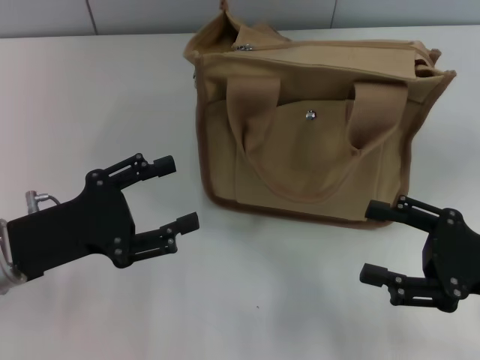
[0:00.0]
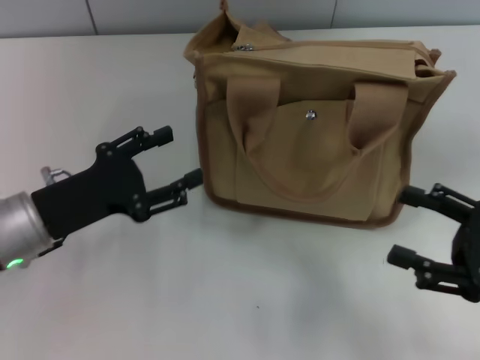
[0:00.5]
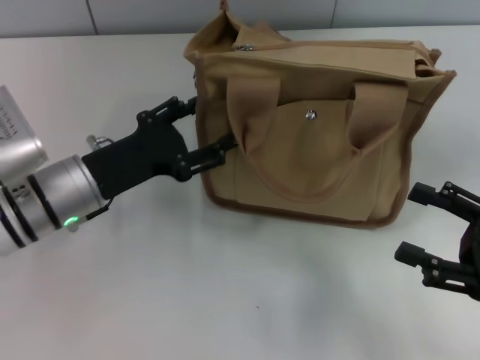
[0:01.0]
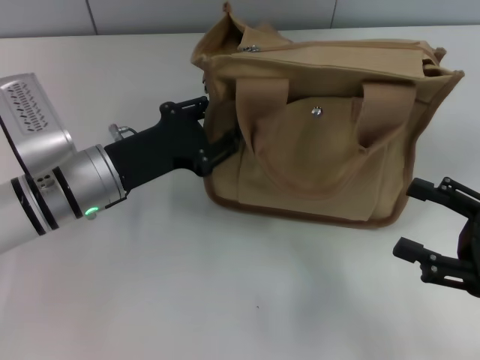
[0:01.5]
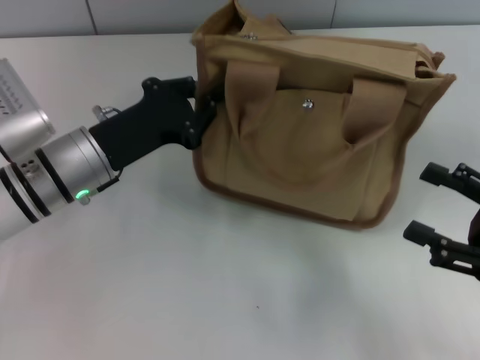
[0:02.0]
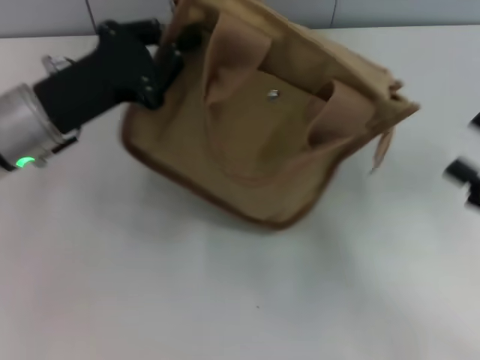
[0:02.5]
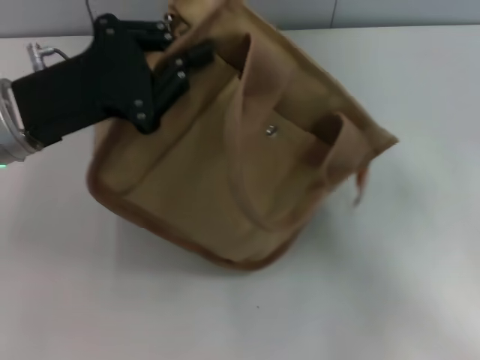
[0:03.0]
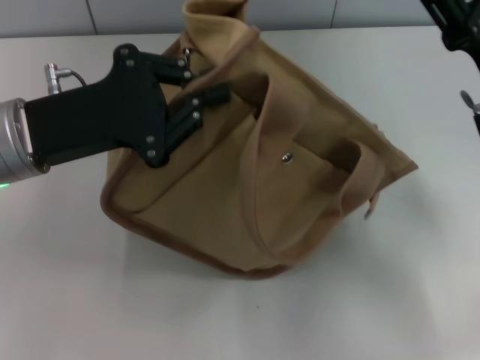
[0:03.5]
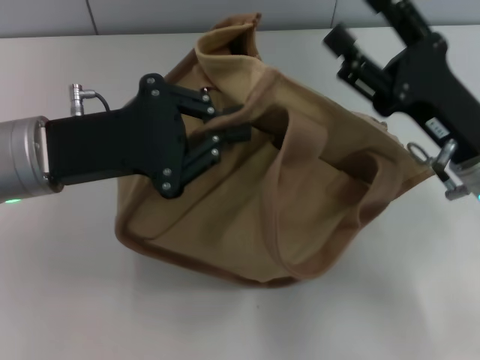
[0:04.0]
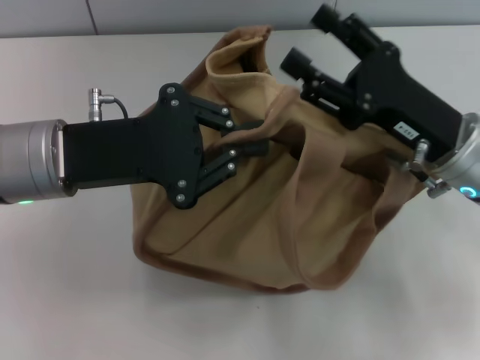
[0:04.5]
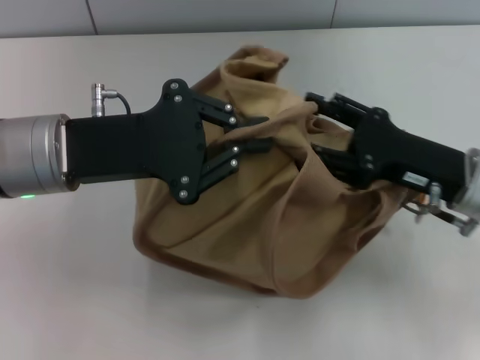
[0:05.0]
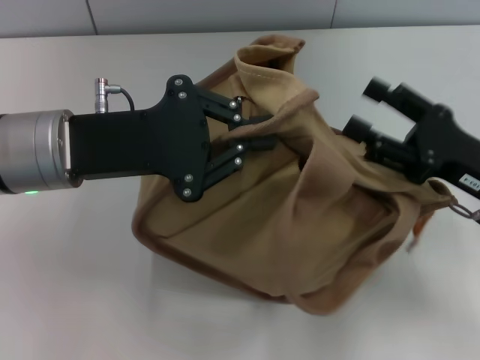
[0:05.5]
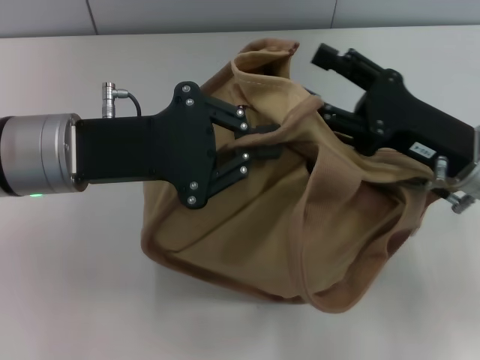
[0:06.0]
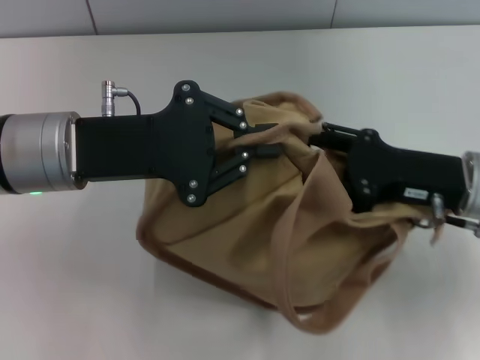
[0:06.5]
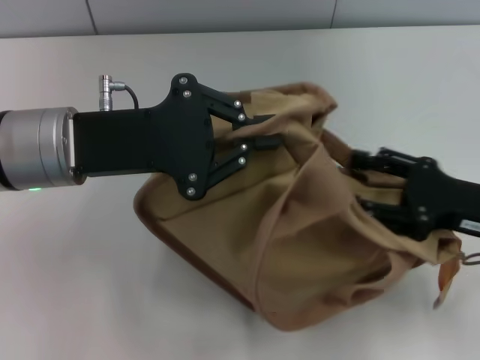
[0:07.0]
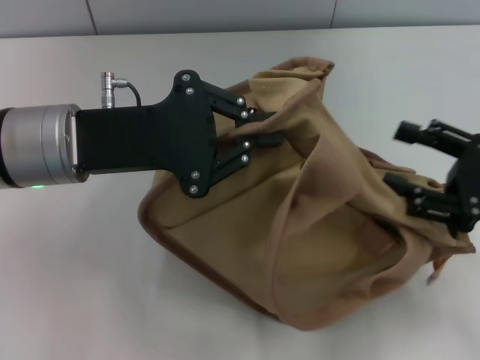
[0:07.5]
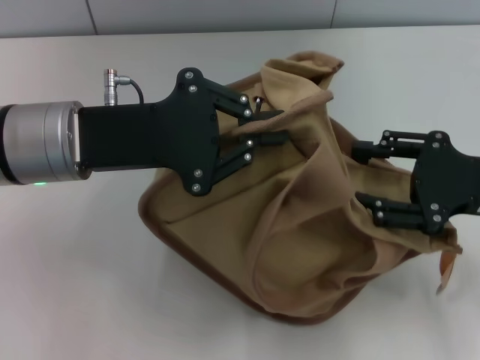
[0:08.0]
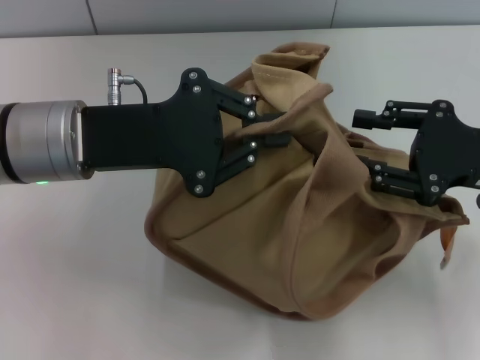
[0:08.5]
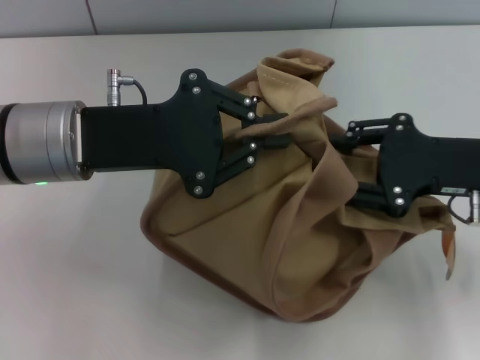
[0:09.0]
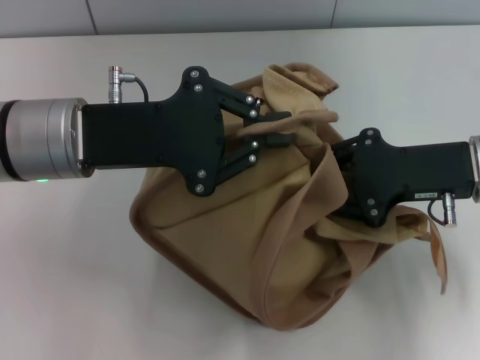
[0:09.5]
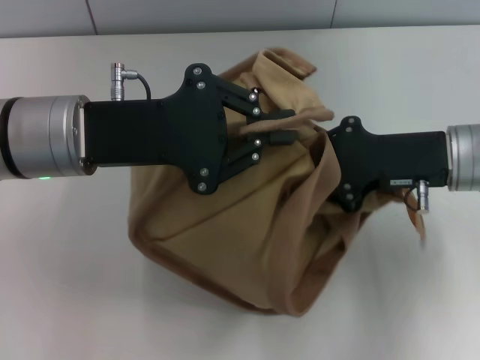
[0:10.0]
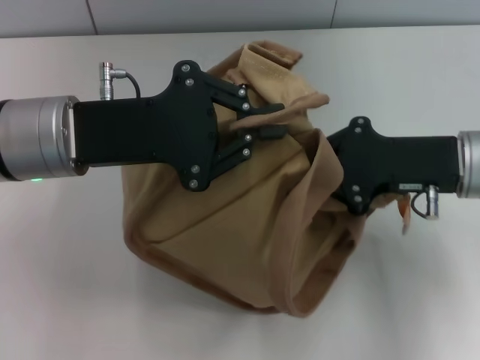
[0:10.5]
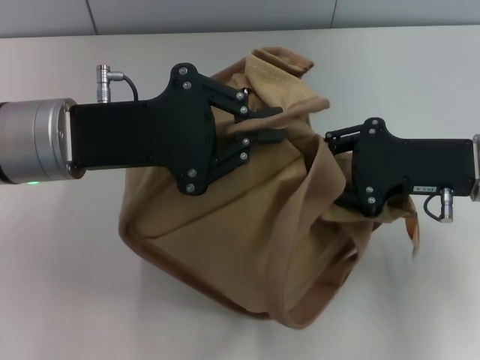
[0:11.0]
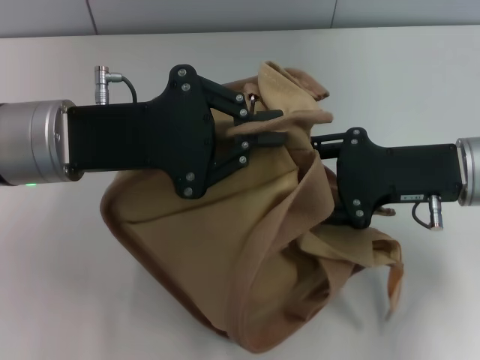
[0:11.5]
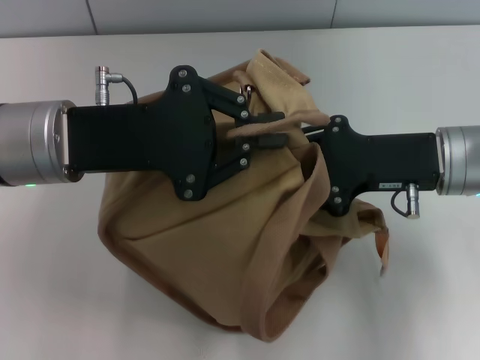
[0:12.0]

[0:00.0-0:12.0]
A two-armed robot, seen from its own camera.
0.0 to 2.0 s: The left gripper shifts about 10 cm forward and to the right, and closes up.
2.0 to 4.0 s: The right gripper shifts about 15 cm to the left and forward. Meanwhile the left gripper shifts some 10 cm upward.
6.0 to 8.0 s: The right gripper is displaced to the right by about 5 cm.
8.0 to 10.0 s: The right gripper goes about 5 cm to the left, and closes.
10.0 to 12.0 s: The right gripper closes, then reopens.

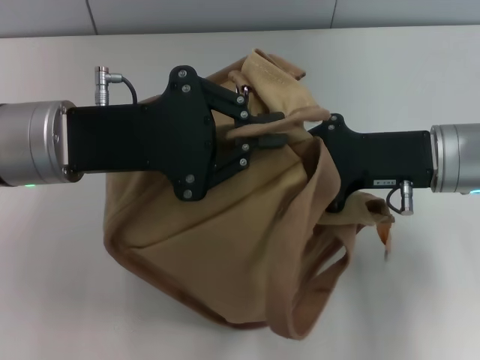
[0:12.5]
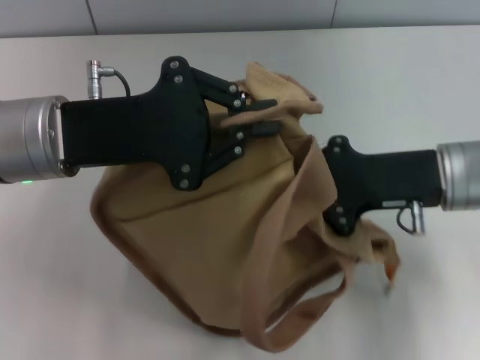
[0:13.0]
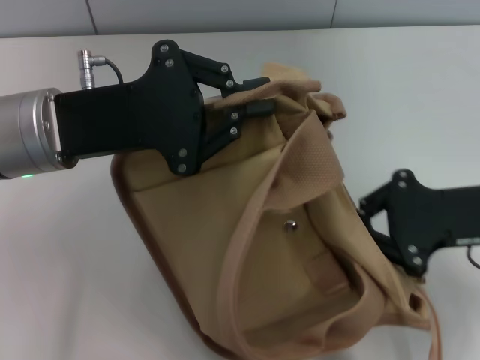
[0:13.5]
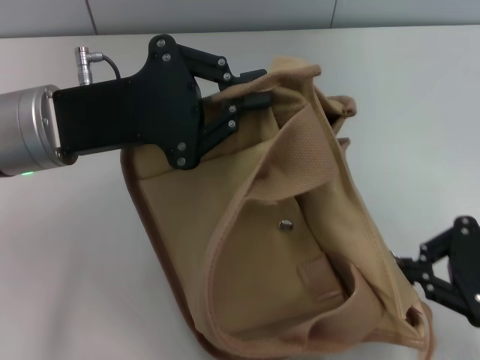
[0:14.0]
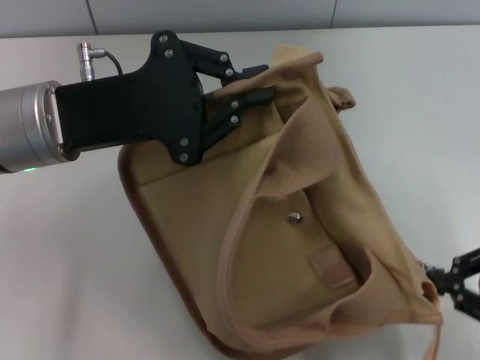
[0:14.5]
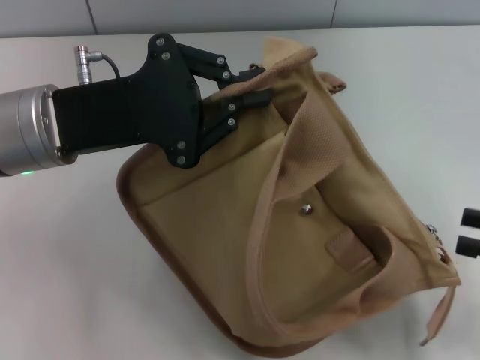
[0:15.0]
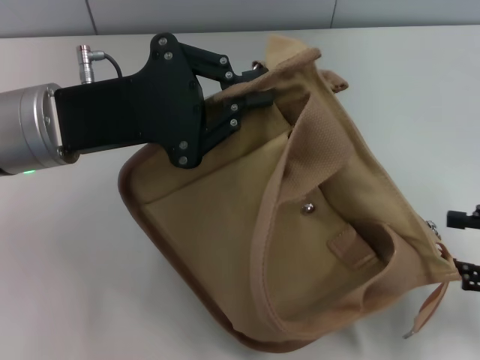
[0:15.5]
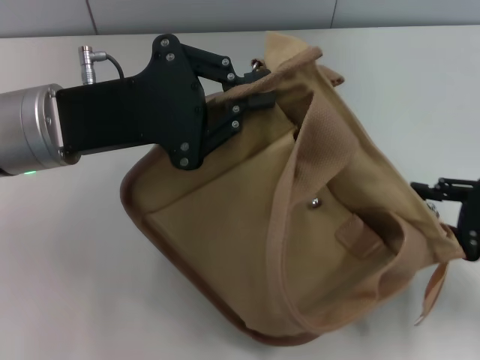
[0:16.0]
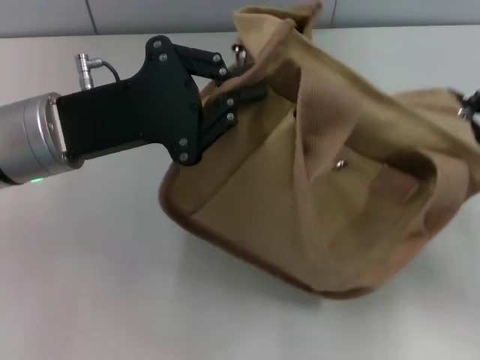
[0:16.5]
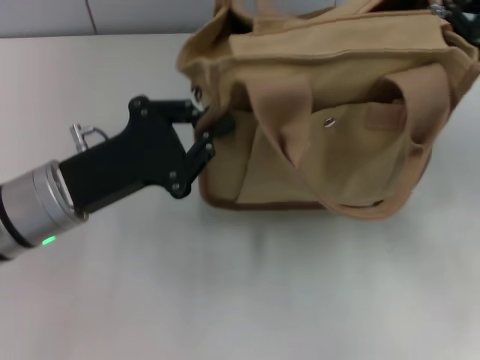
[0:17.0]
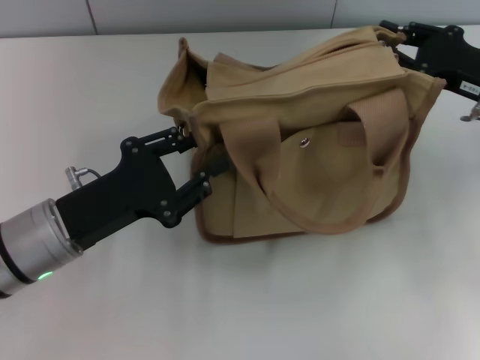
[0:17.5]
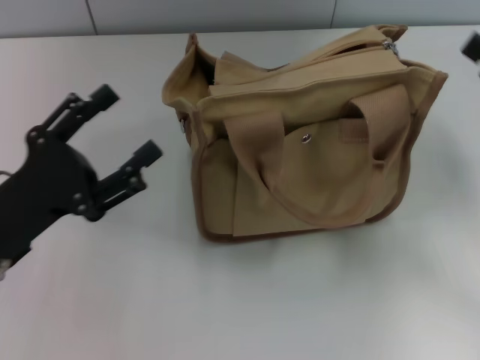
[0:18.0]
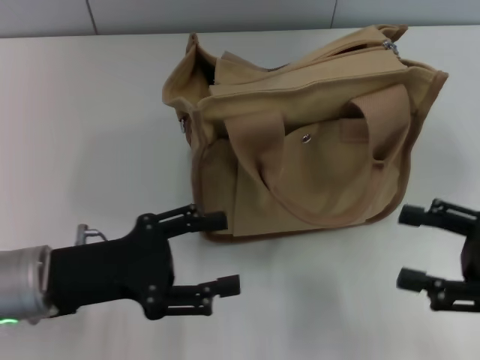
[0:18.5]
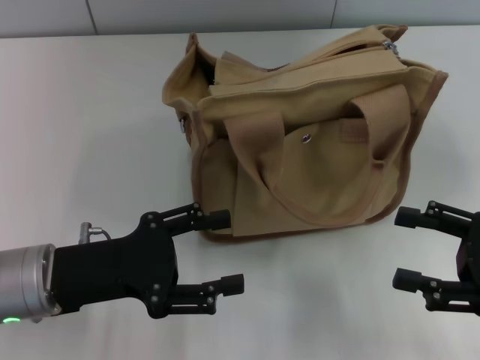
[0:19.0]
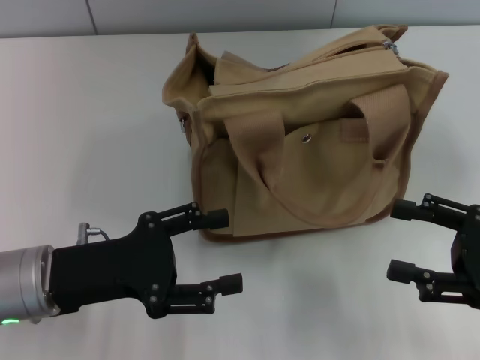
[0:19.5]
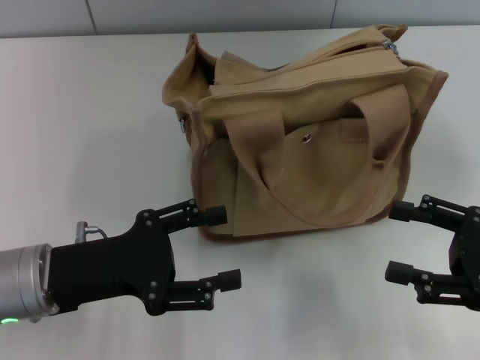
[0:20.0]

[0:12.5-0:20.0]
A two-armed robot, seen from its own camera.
Step, 12.5 to 15.5 s: Pull open the zipper with your right hand.
Step, 16.0 to 17.5 s: Grab the bag with your left hand.
12.5 to 14.5 s: The right gripper travels to the right and backward by about 15 cm.
14.5 to 16.5 s: The right gripper travels forward by some 5 cm, and opens and closes again.
16.5 to 18.0 s: The right gripper reaches about 10 cm forward, then returns, and opens its fingers. The left gripper travels backward, downward and to the left by about 15 cm, and opens up.
18.0 to 20.0 s: The right gripper moves backward, some 5 cm.

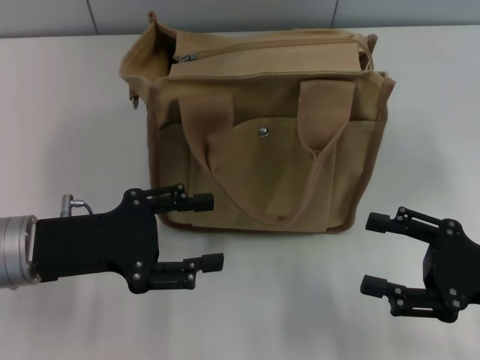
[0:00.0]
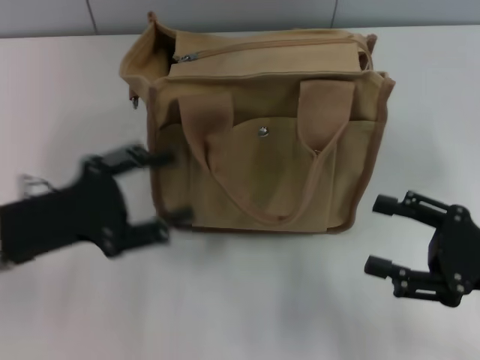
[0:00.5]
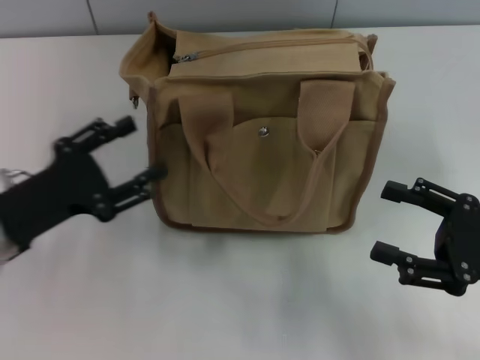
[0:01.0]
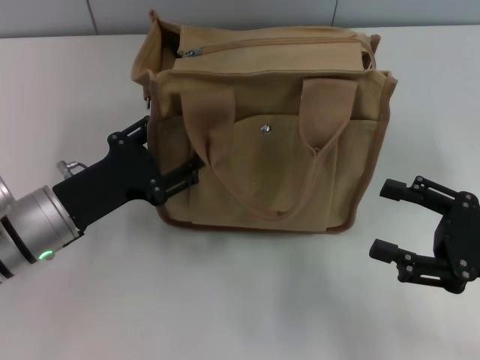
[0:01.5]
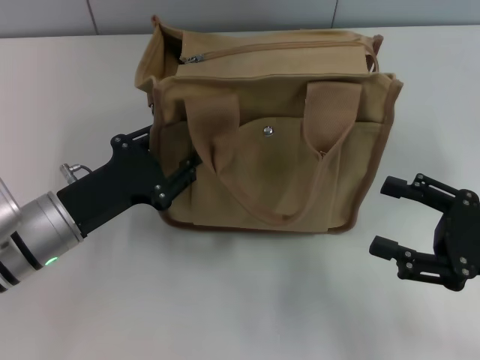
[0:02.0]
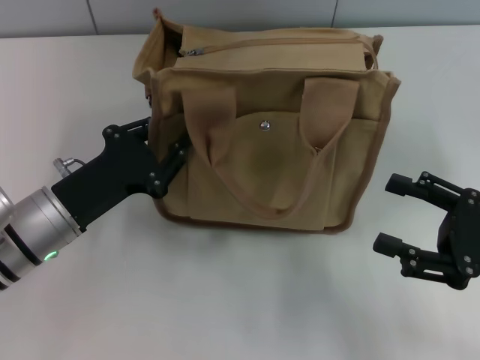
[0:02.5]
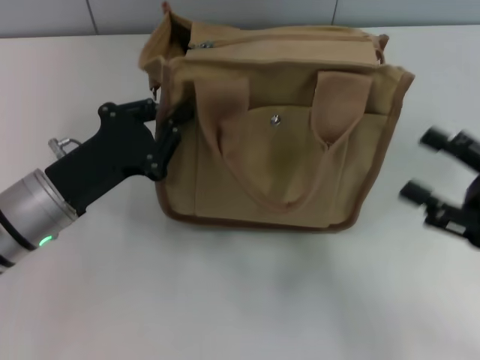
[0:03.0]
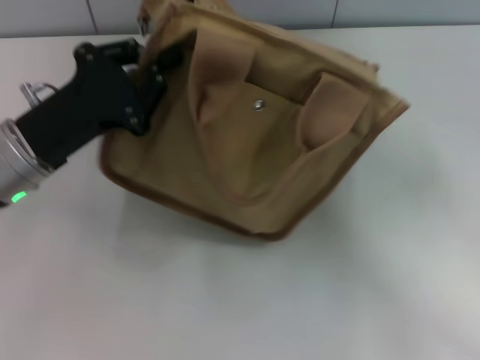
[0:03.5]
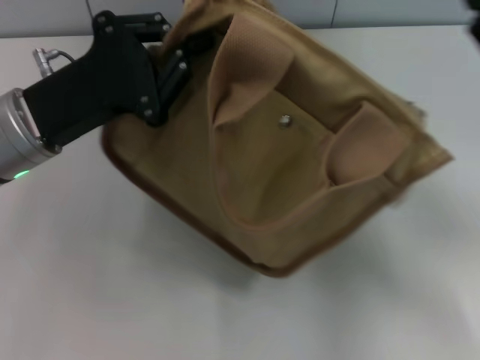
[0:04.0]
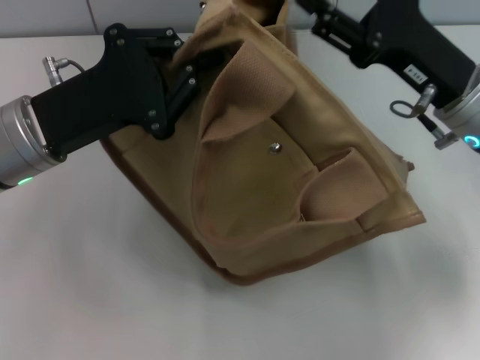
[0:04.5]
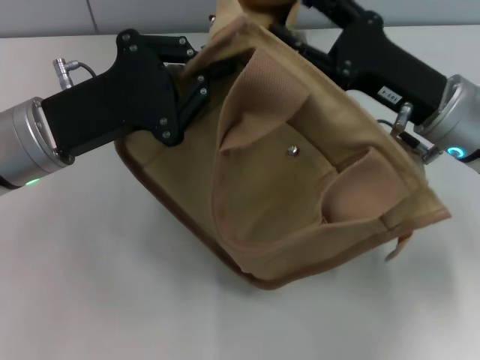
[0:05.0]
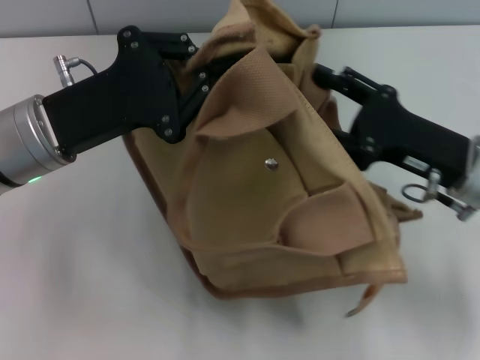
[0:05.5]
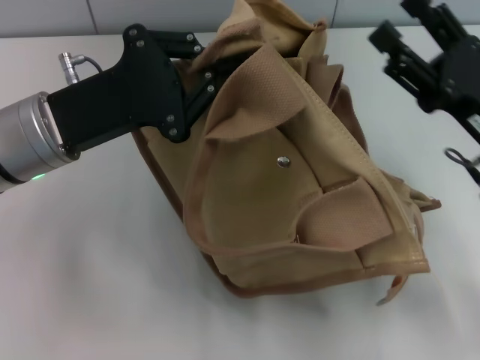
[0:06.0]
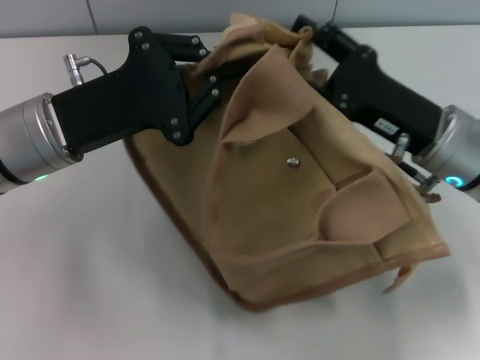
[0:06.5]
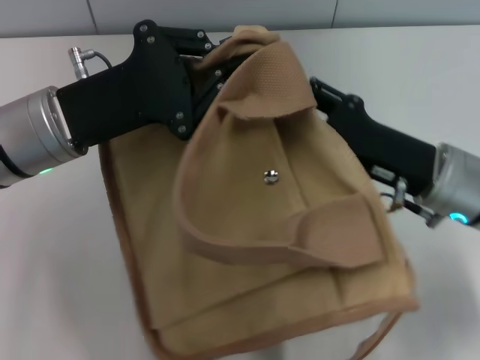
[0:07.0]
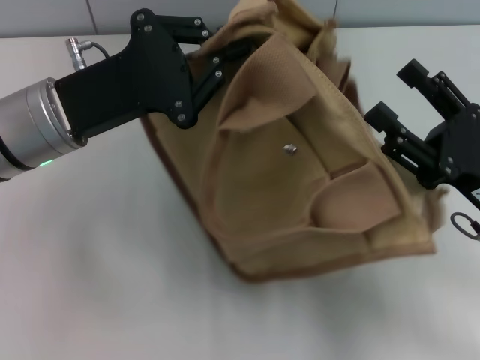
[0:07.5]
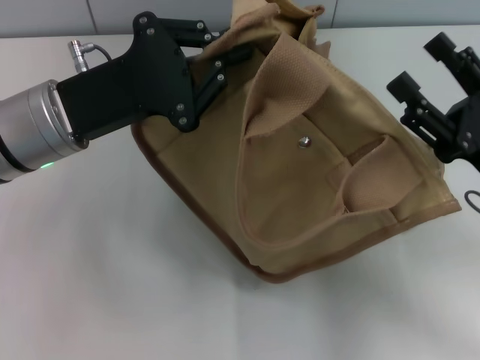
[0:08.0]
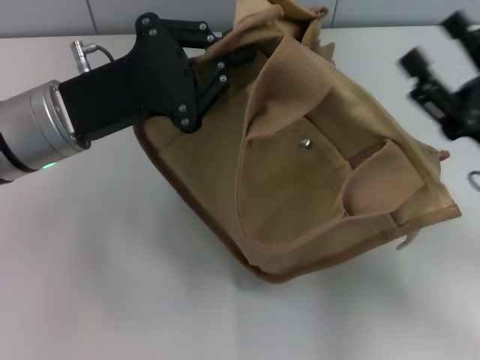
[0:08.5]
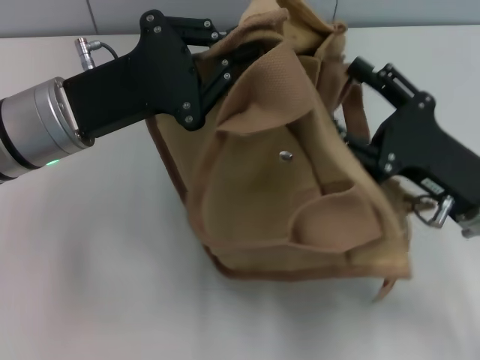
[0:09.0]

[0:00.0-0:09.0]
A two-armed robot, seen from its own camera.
0.0 to 2.0 s: The left gripper shifts by some 5 cm, and closes up.
2.0 to 4.5 s: The right gripper is displaced forward and to the left by some 15 cm, while the left gripper moves upward, approximately 10 cm, and closes its fingers.
4.5 to 7.0 s: The right gripper changes place by approximately 5 cm.
